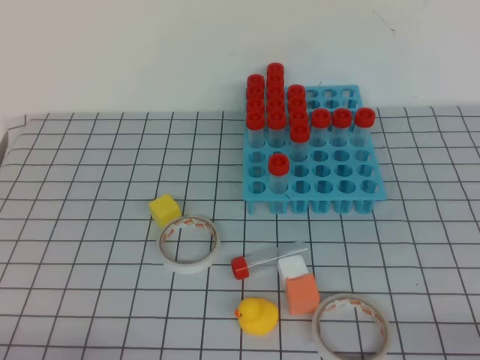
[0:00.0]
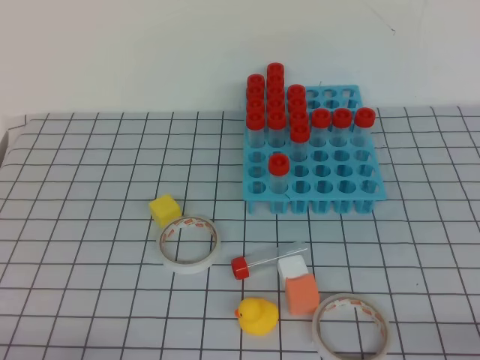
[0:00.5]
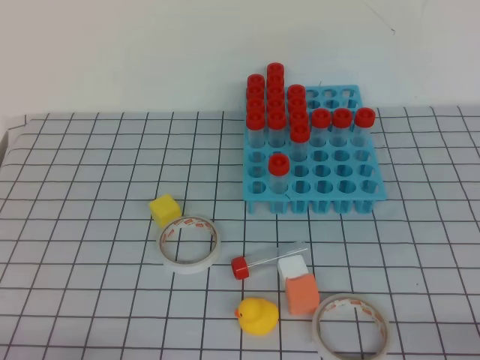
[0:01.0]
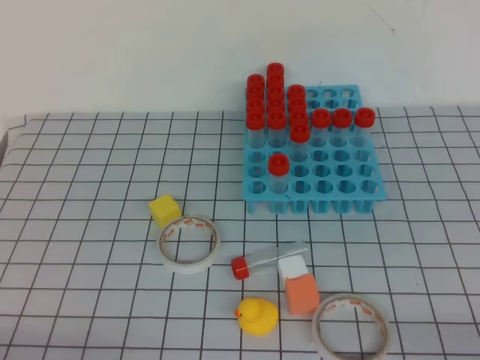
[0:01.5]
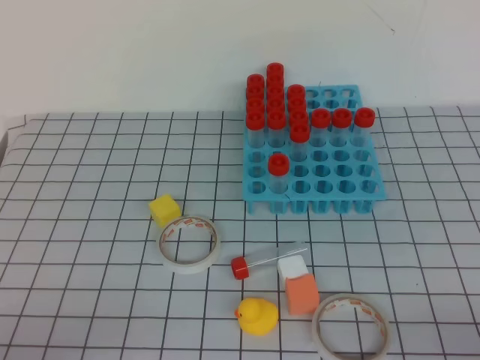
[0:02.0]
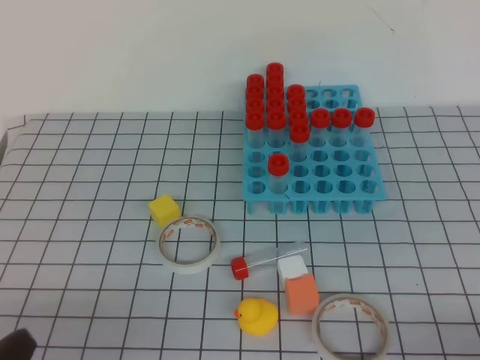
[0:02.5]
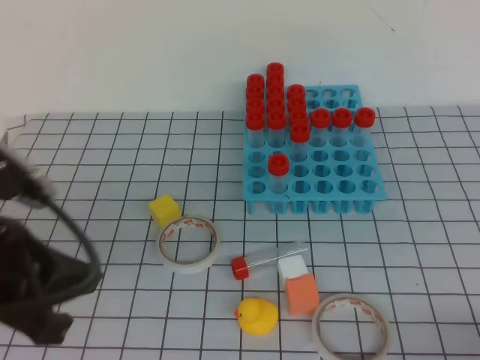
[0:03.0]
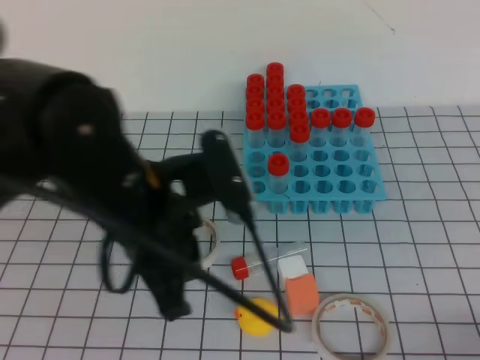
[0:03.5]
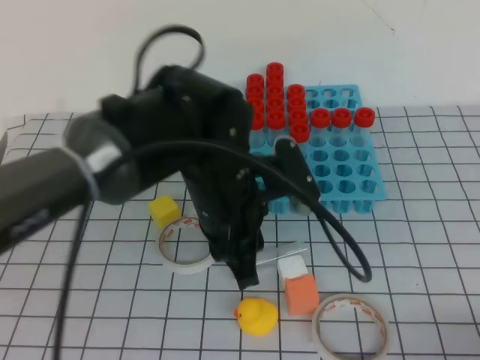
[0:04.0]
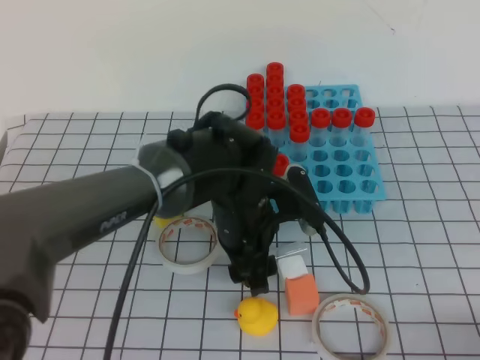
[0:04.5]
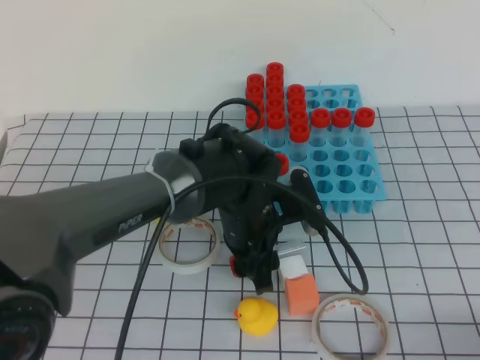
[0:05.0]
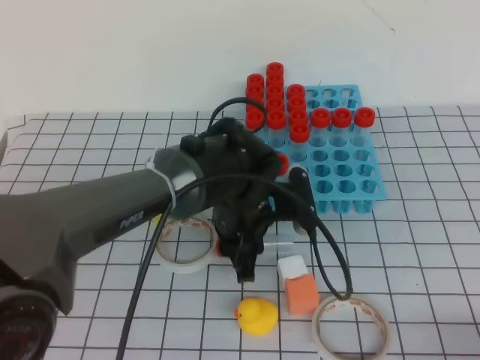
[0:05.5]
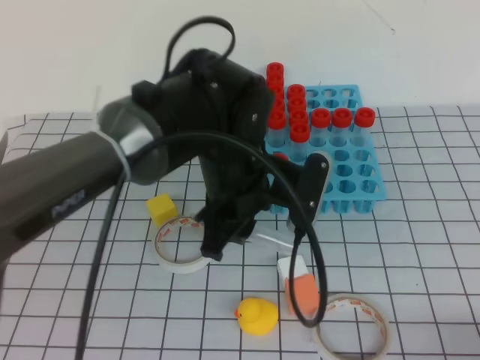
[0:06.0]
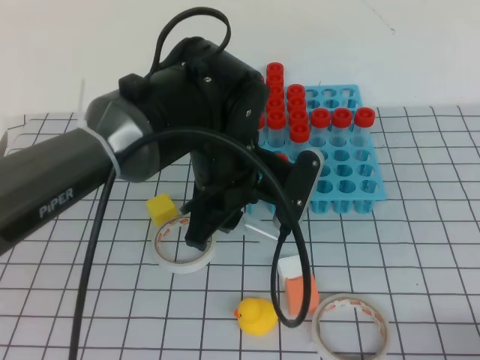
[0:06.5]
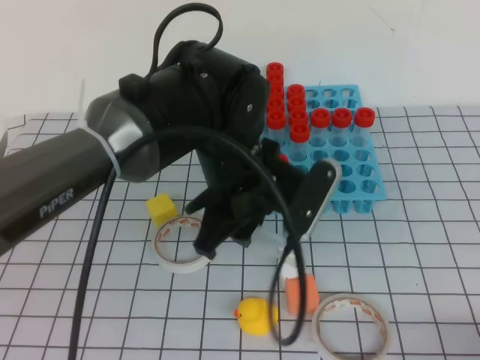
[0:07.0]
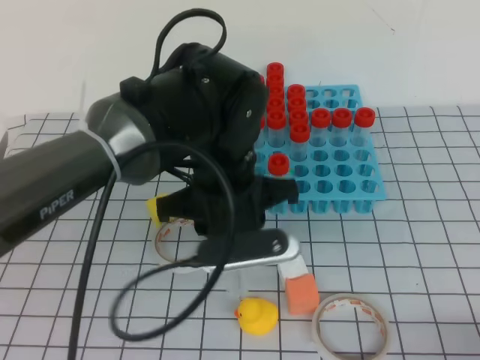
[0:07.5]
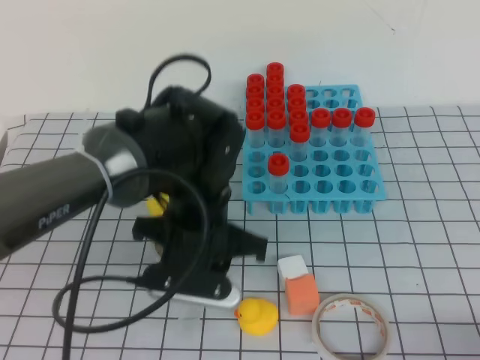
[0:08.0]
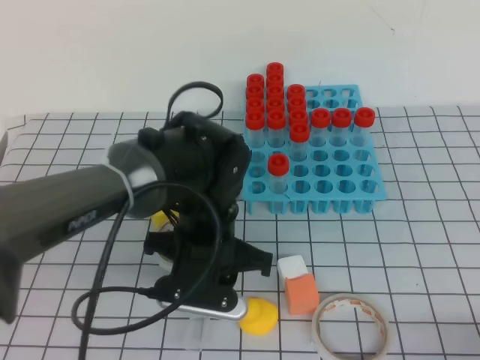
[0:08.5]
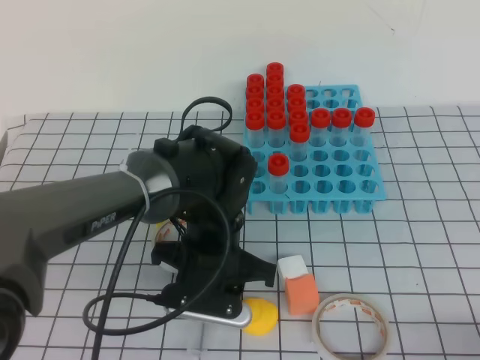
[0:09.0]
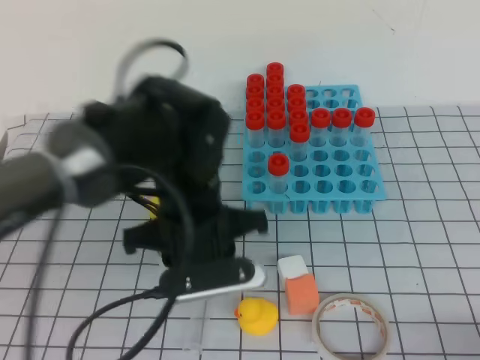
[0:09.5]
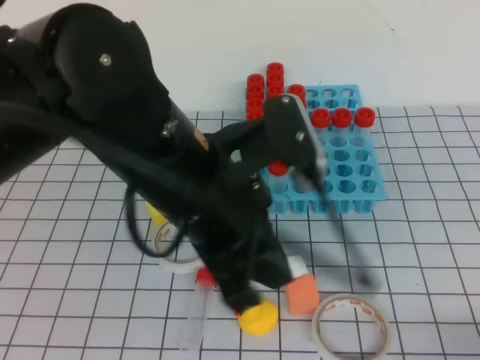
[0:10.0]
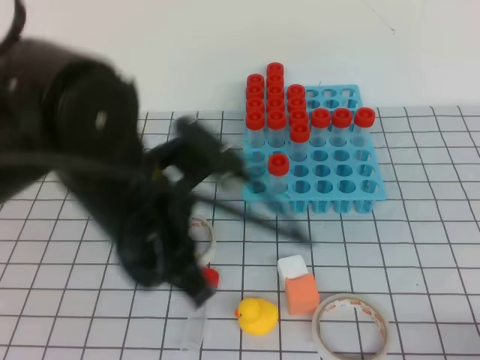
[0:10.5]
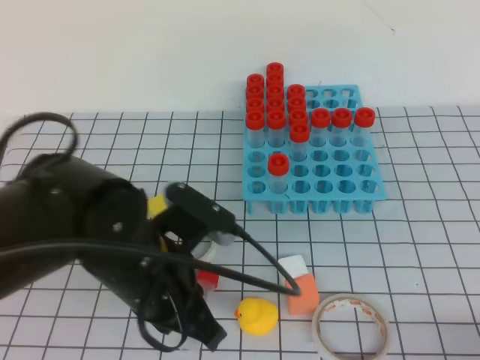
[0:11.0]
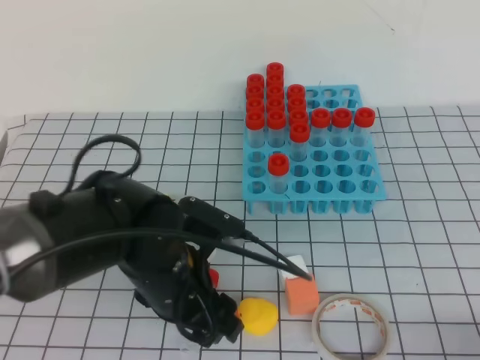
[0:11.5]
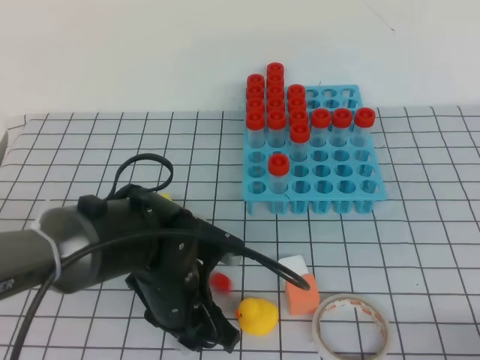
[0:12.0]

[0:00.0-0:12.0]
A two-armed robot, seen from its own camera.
0:02.0 to 0:04.0: The left gripper travels to the right and forward by approximately 35 cm, and opens its fingers.
0:04.0 to 0:06.0: The left gripper goes downward and returns, about 10 cm each way, and opens, then closes once more.
0:08.0 to 0:10.0: The left gripper moves upward and backward, approximately 15 cm.
0:10.0 to 0:12.0: The left gripper goes about 15 cm downward, and opens up.

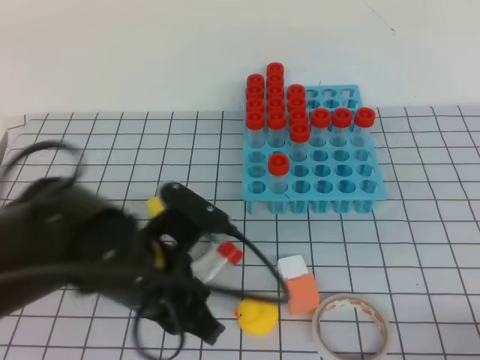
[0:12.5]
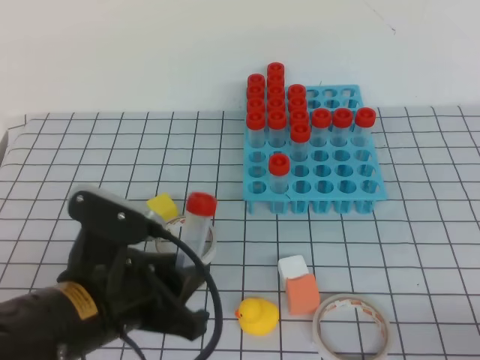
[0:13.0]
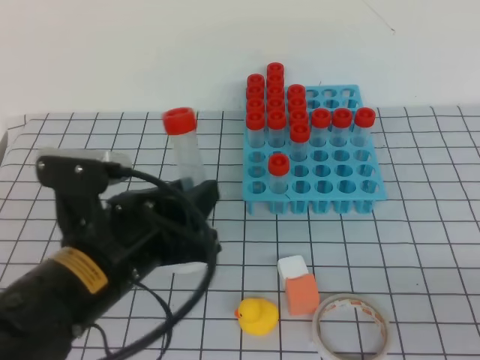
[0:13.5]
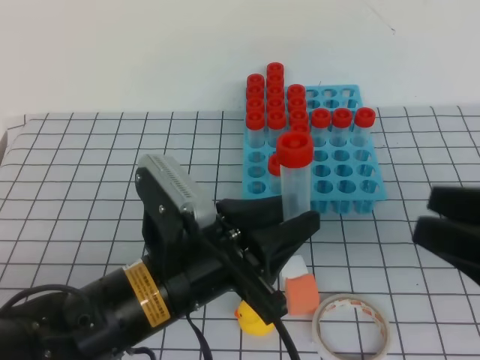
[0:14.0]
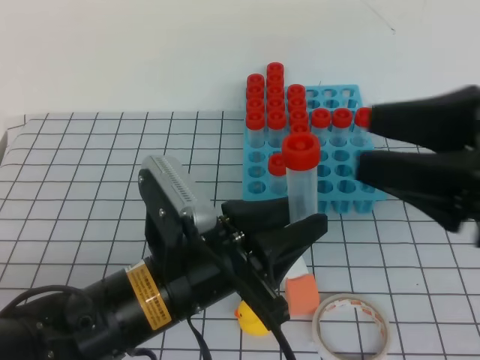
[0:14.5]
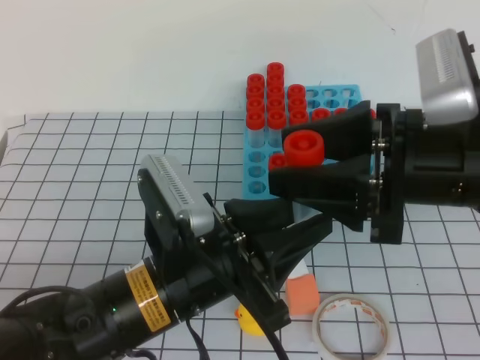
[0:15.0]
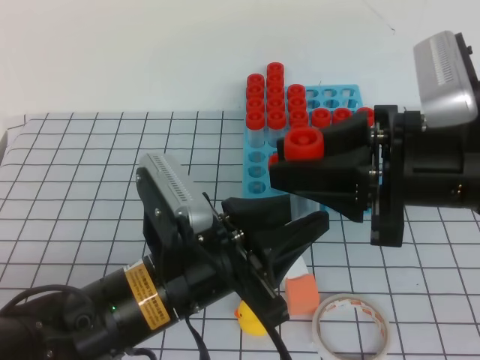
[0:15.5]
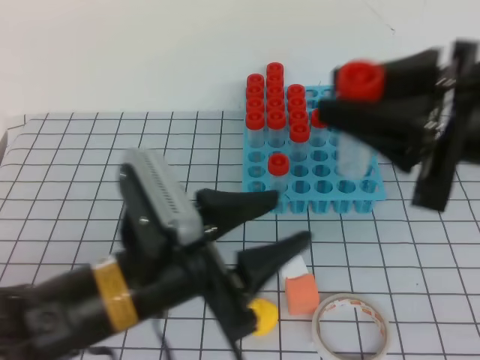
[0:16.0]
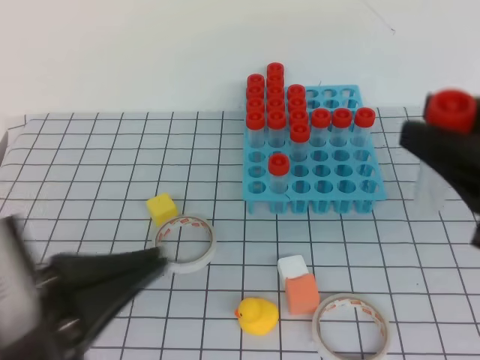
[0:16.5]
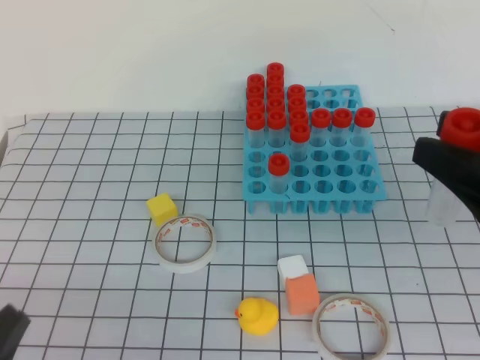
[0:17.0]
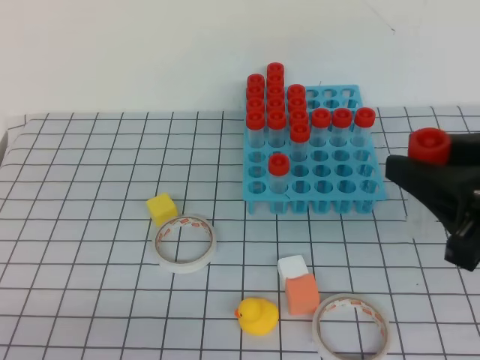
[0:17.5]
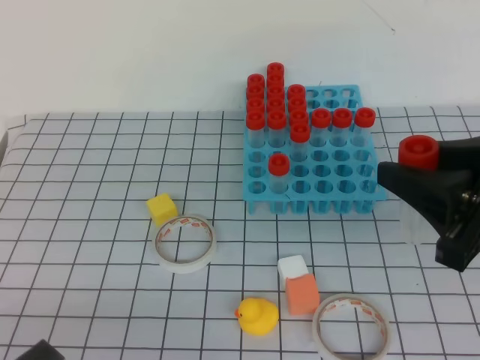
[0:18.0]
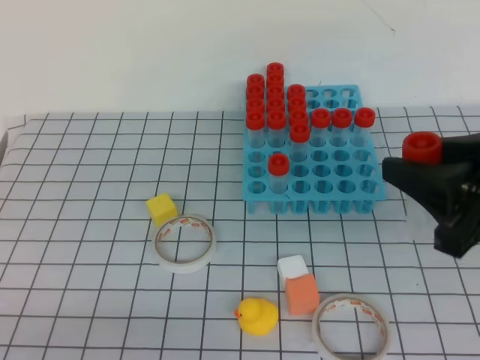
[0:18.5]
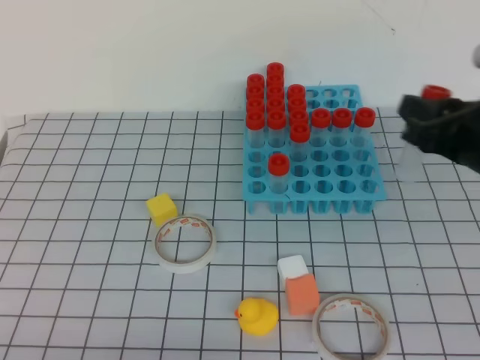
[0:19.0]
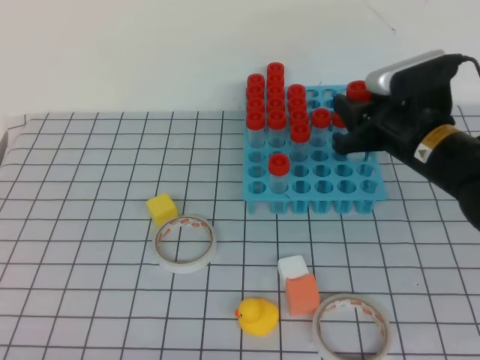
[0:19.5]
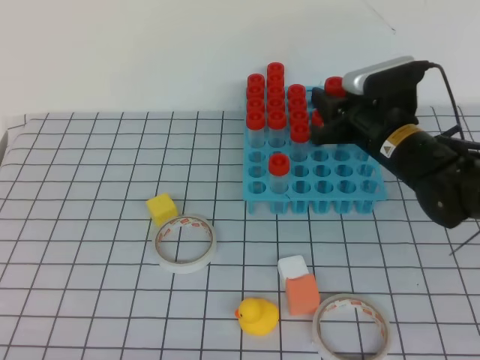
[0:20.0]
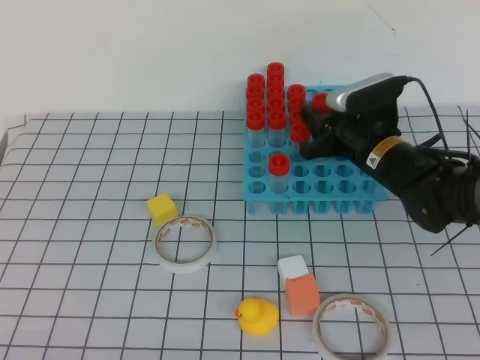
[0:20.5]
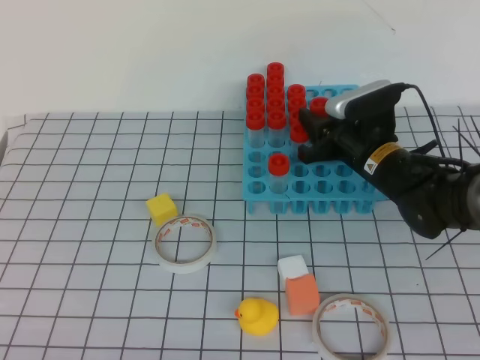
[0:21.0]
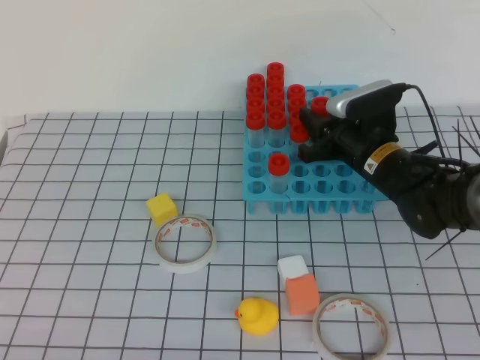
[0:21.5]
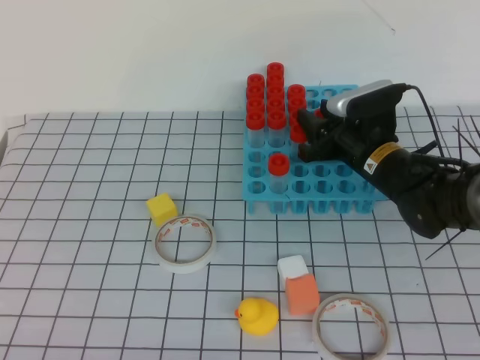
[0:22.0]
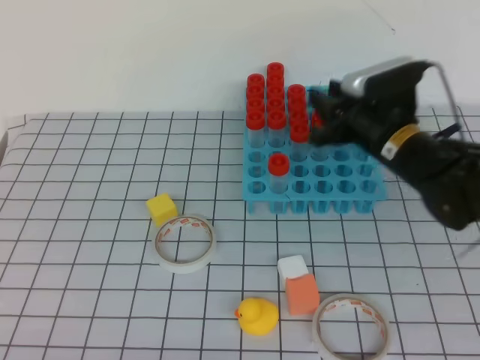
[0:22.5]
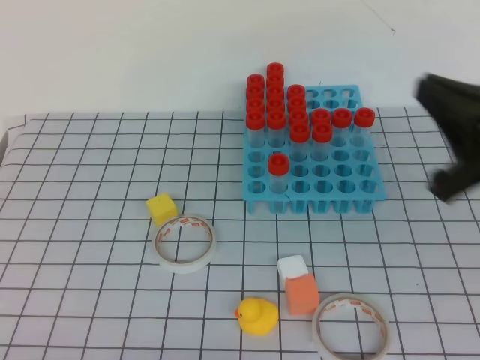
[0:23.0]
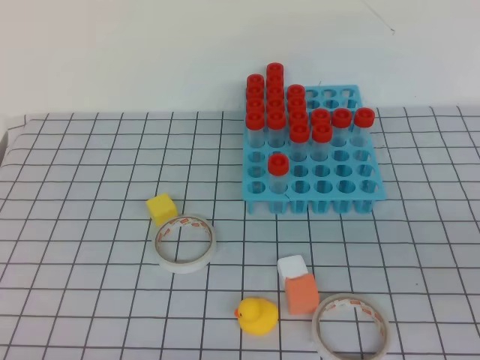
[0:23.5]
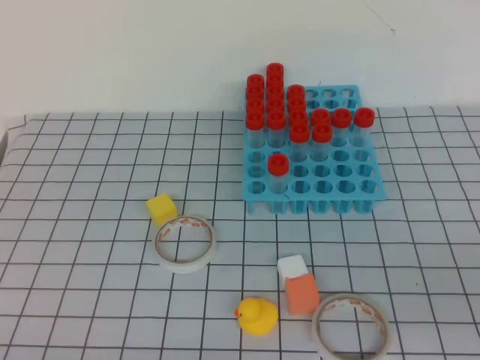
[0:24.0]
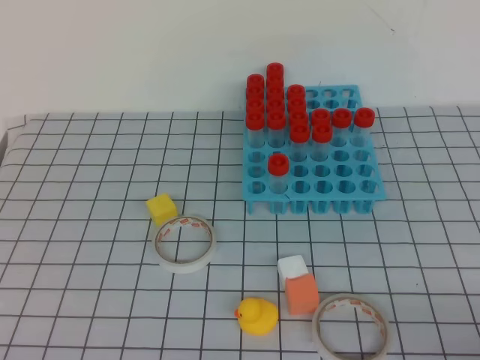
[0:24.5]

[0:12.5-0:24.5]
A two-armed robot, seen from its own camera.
0:12.5 to 0:14.5: The right gripper shifts approximately 25 cm forward, upward and to the left, and opens.
0:14.5 to 0:16.5: The right gripper closes its fingers. The left gripper heads to the left, backward and upward, covering approximately 15 cm, and closes up.
0:16.5 to 0:18.5: The left gripper heads backward and downward, covering approximately 10 cm, while the right gripper changes place by some 5 cm.
0:18.5 to 0:20.5: The right gripper is displaced forward and downward by roughly 25 cm.
0:20.5 to 0:22.5: The grippers make only small movements.
0:22.5 to 0:24.5: The right gripper travels backward and to the right by approximately 35 cm, and closes its fingers.
